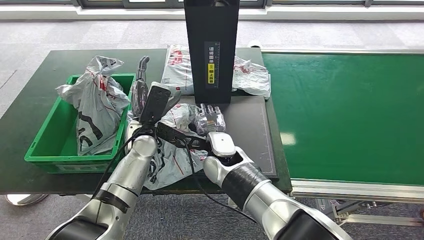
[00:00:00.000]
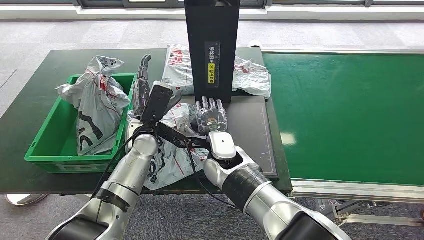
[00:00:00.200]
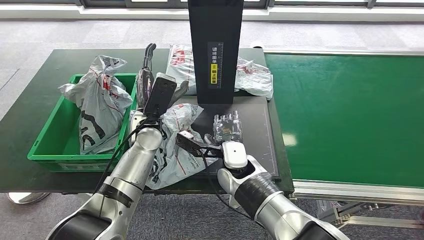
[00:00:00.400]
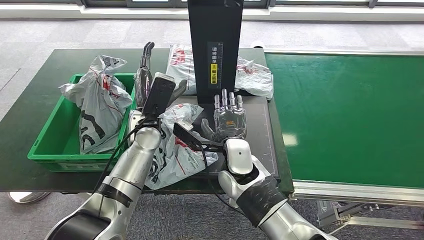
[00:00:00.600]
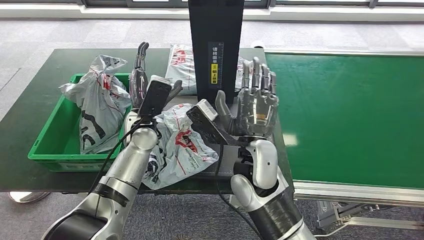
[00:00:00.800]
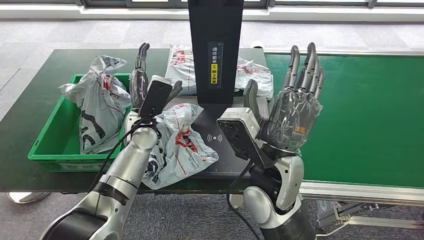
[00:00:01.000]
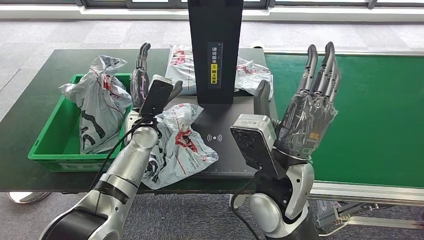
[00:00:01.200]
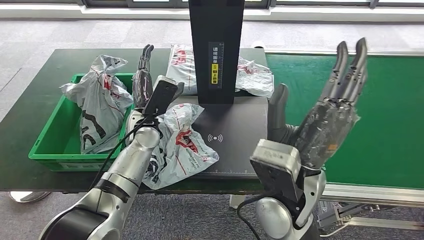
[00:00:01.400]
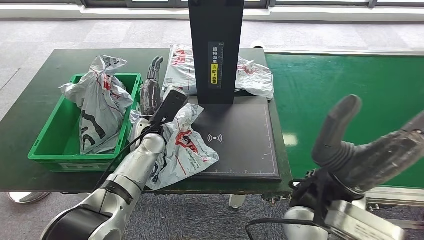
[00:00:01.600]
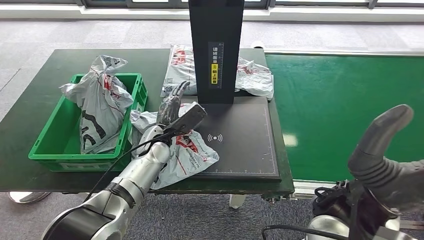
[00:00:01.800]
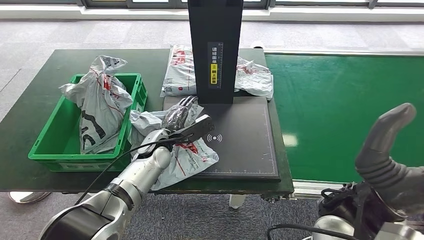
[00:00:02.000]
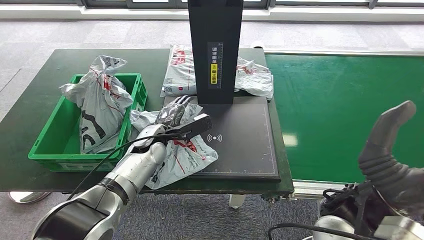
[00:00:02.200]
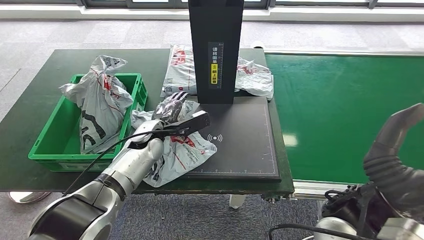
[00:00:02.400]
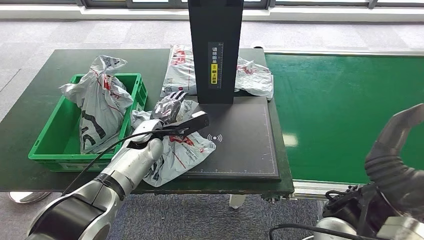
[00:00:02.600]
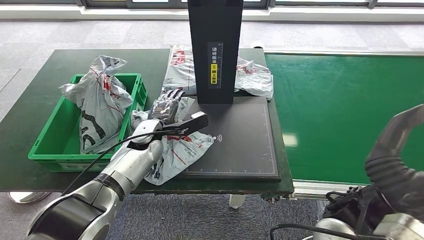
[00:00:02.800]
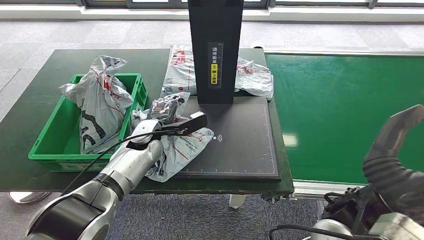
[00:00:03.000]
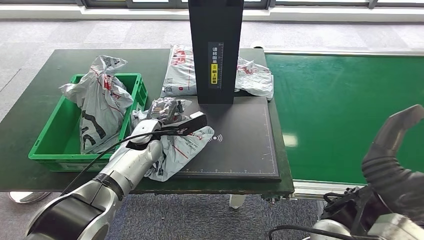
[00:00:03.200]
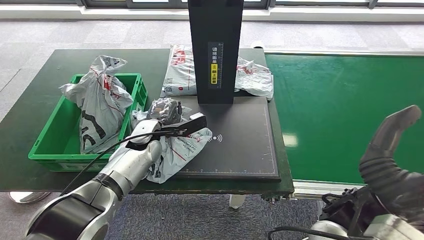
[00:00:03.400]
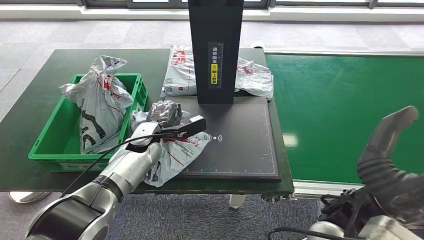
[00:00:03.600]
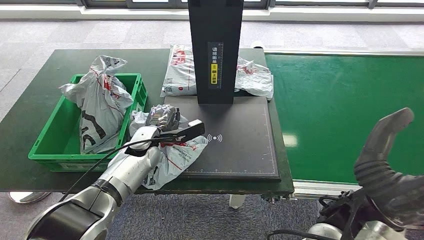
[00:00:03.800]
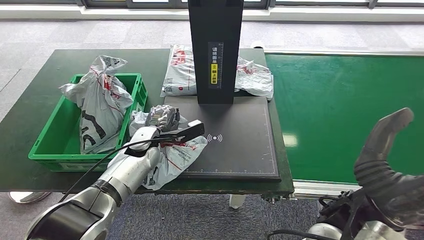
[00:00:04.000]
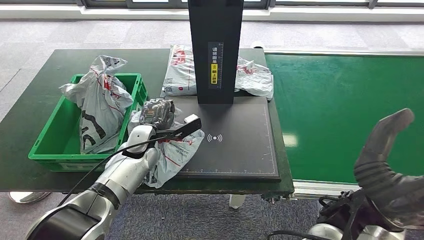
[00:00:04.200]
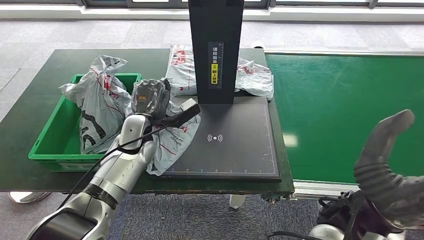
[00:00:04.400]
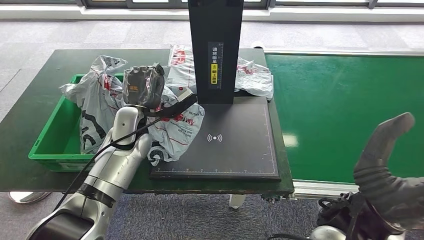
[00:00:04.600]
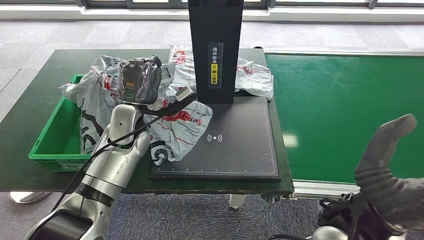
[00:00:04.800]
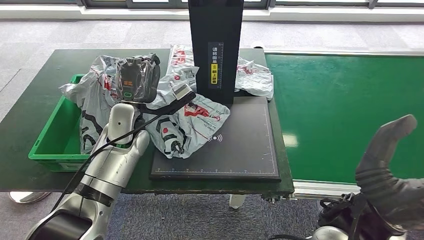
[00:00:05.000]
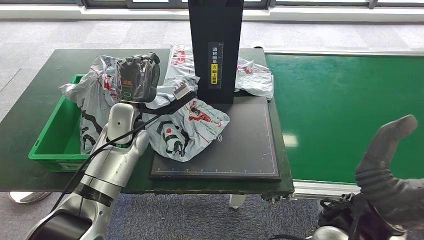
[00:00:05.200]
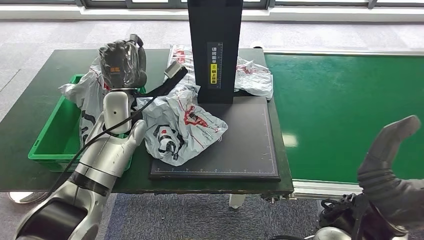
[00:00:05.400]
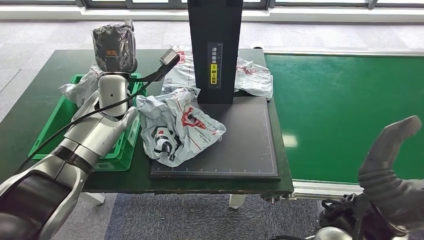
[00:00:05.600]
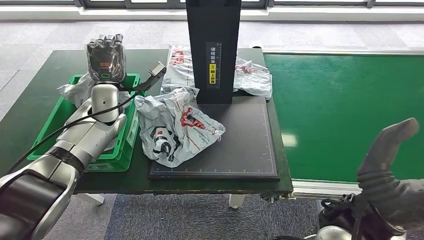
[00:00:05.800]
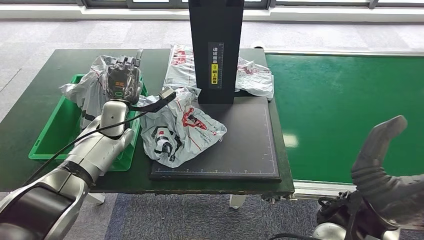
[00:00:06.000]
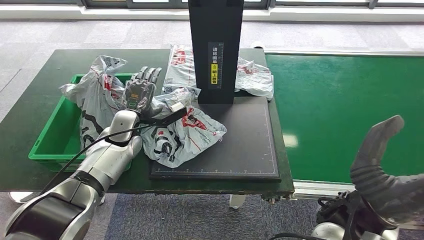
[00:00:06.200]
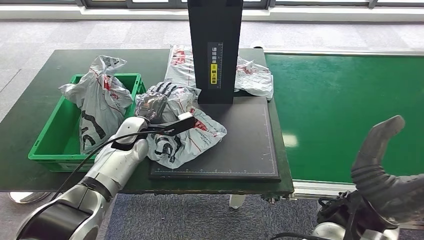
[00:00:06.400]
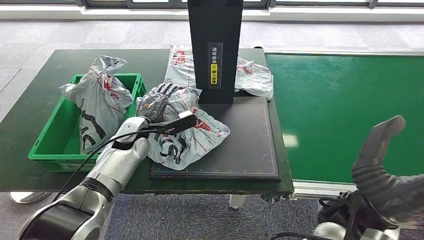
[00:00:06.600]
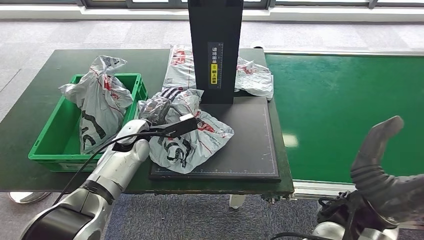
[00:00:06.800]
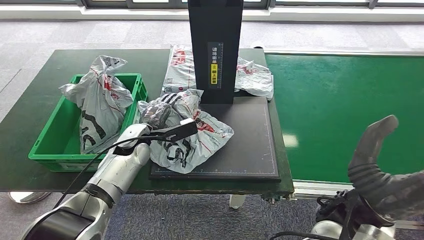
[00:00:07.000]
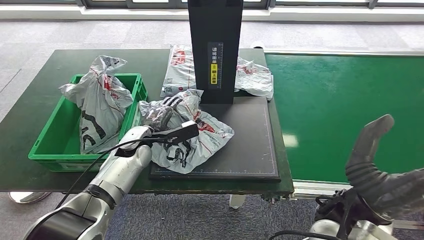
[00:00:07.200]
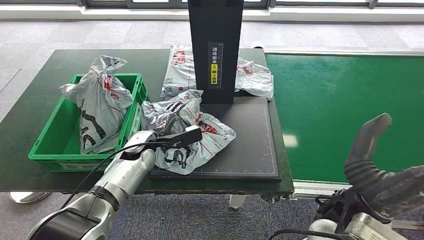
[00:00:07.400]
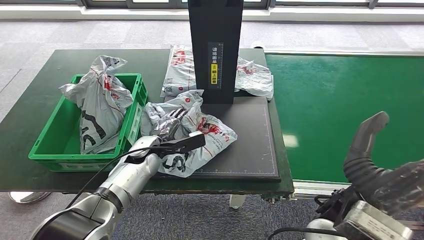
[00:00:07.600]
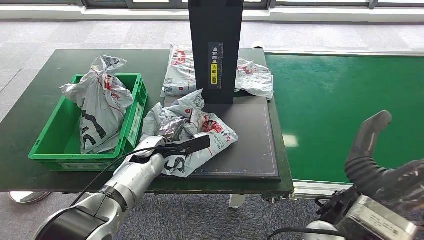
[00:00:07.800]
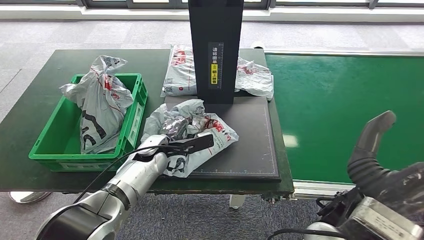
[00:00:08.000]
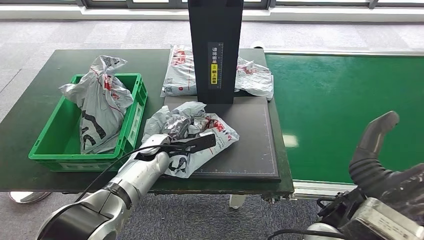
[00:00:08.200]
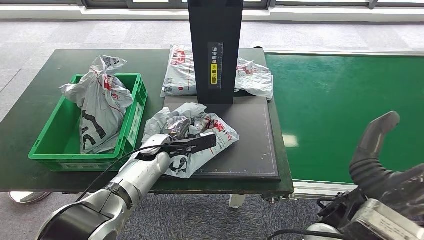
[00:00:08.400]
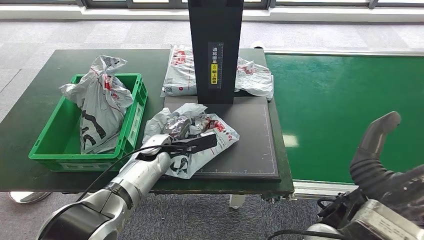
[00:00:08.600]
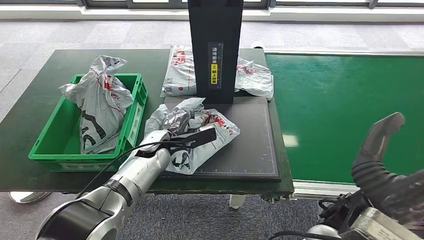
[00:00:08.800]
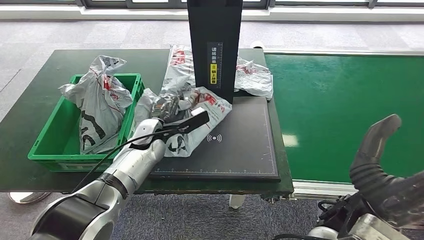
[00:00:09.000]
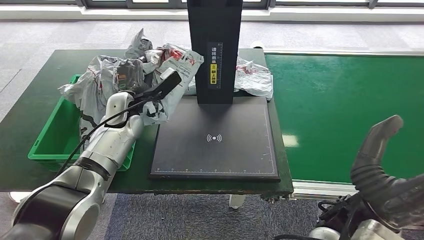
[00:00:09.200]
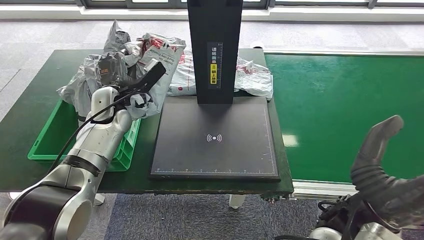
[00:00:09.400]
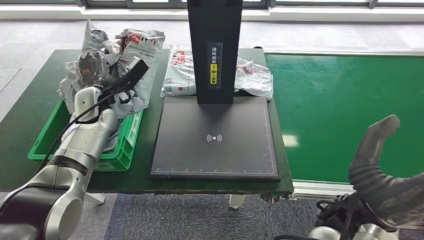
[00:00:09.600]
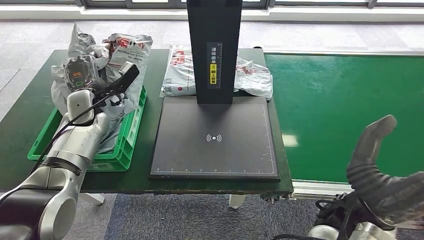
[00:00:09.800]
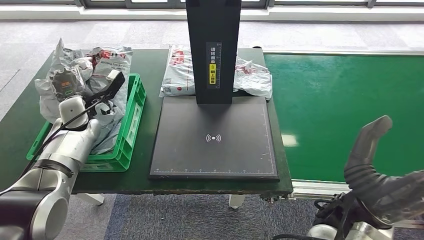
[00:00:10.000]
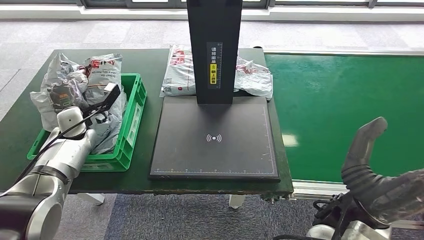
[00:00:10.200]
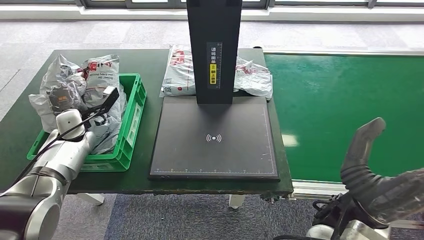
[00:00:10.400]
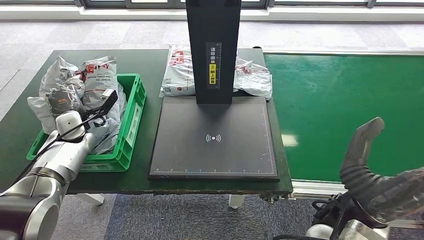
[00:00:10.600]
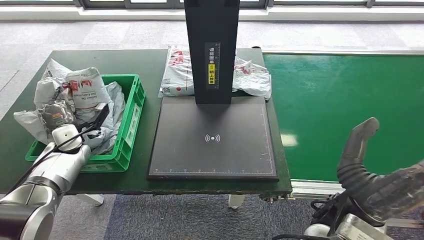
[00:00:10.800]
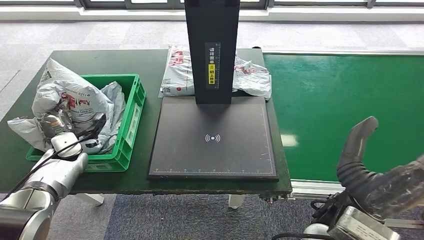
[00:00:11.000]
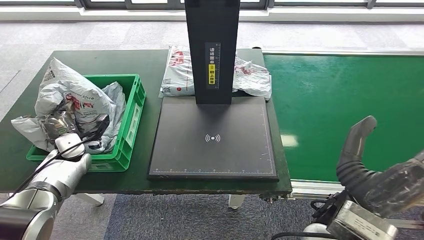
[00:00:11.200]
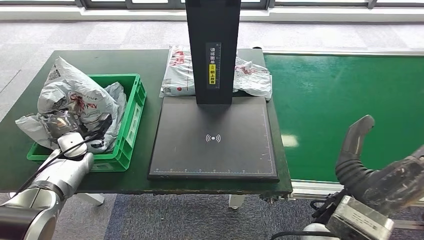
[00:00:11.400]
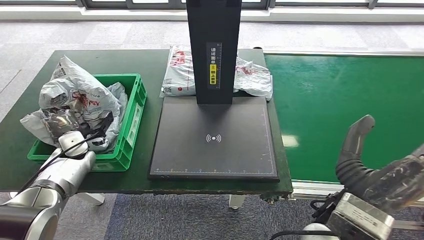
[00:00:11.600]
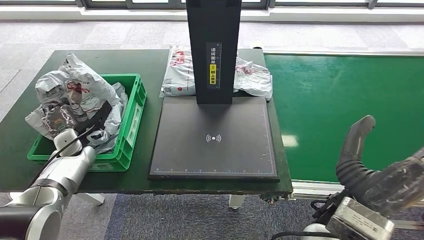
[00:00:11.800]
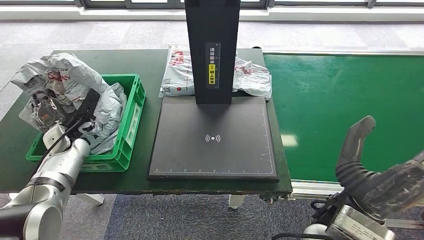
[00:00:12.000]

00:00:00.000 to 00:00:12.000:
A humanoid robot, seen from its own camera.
Step, 00:00:07.200 to 00:00:09.200: Pick up the parcel from the inbound machine.
00:00:04.400 to 00:00:06.000: The left hand heads to the left, covering about 10 cm, and goes upward and returns, approximately 10 cm each way.
00:00:07.600 to 00:00:09.000: The left hand changes place by about 5 cm.

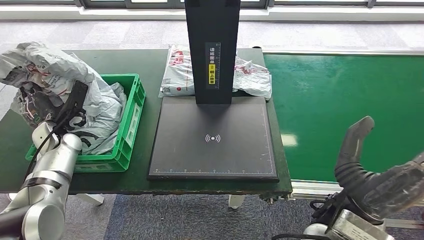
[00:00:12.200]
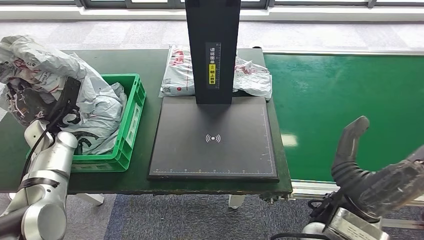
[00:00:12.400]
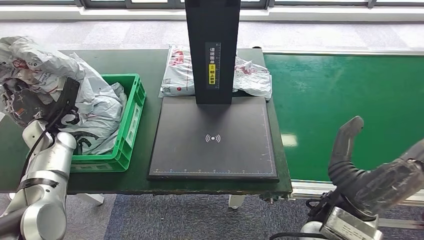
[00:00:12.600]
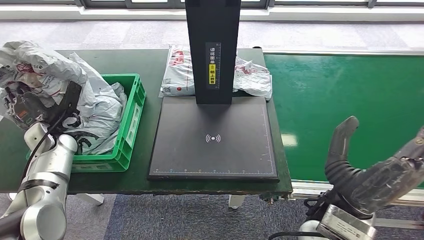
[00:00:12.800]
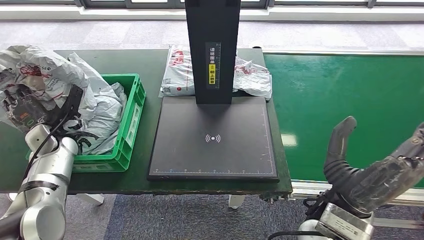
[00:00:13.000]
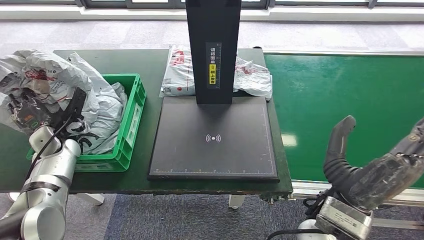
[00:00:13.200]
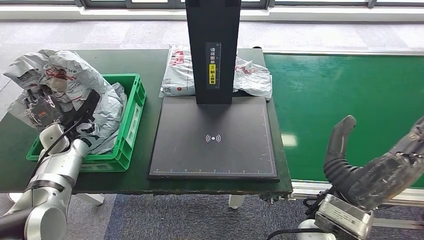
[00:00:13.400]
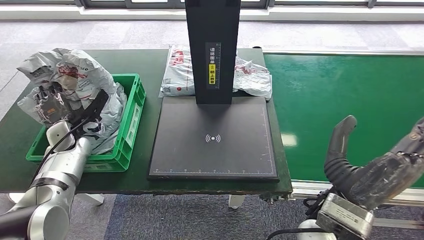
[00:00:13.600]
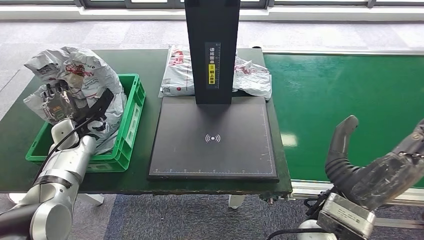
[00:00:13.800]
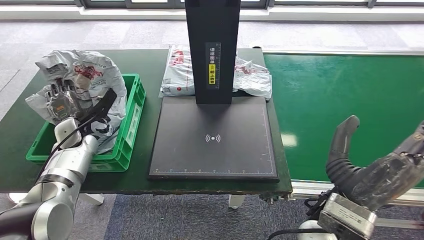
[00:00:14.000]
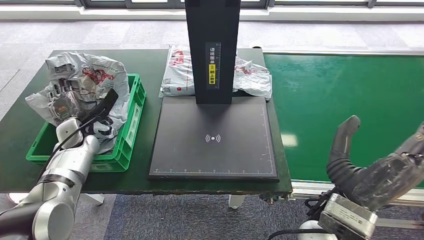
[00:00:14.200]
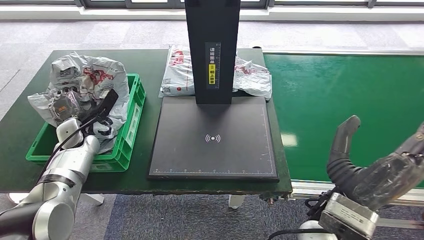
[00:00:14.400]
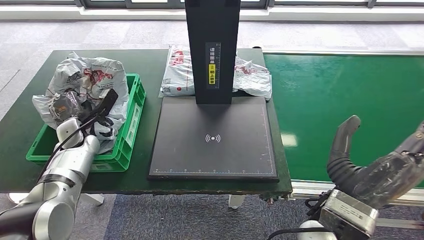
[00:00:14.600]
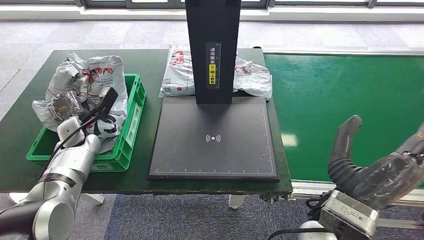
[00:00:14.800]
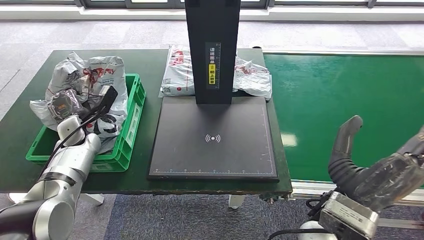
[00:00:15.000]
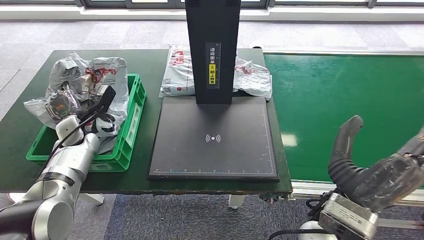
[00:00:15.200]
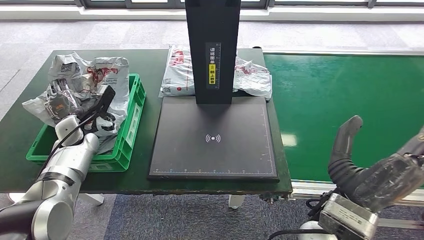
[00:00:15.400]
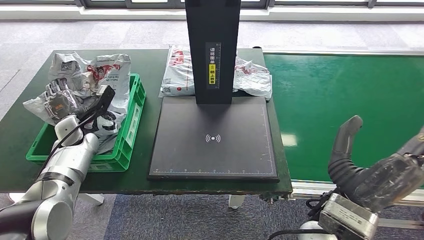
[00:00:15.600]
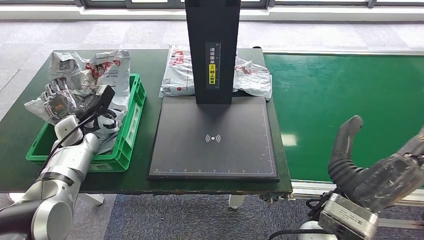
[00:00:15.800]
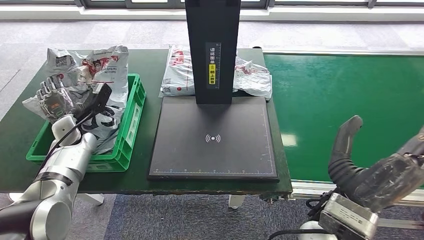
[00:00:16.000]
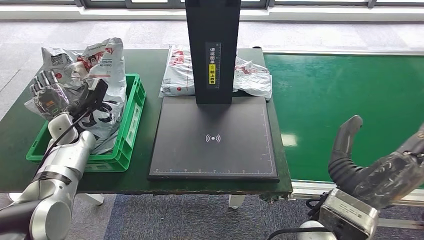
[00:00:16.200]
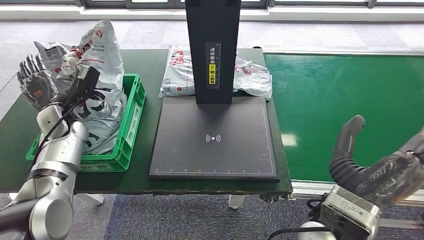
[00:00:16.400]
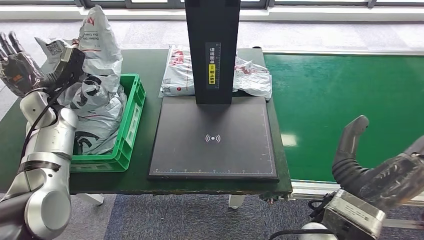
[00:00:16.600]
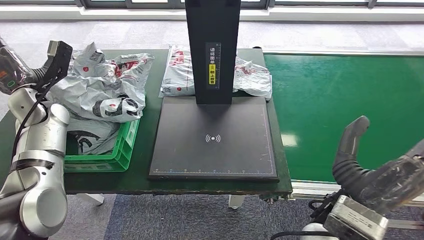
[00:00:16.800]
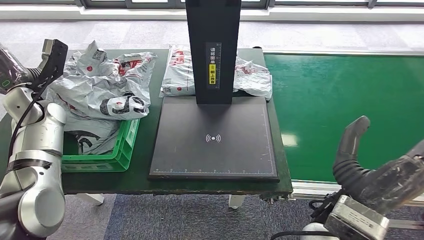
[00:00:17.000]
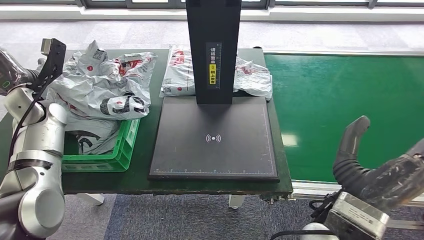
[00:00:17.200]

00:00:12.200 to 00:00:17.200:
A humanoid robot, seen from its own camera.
Step, 00:00:12.200 to 00:00:17.200: Place the parcel into the delivery box.
00:00:12.200 to 00:00:15.600: The hands move only a little.
